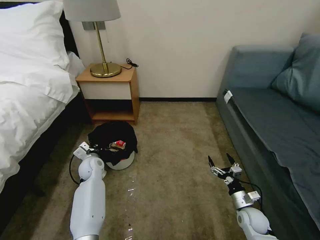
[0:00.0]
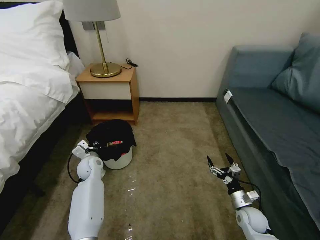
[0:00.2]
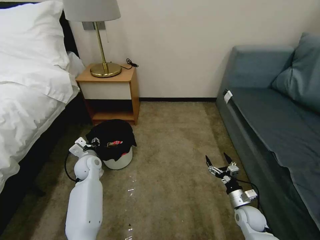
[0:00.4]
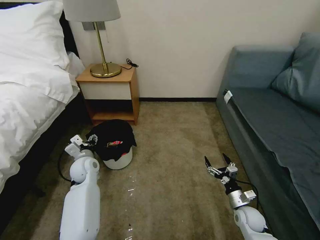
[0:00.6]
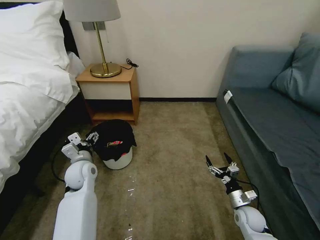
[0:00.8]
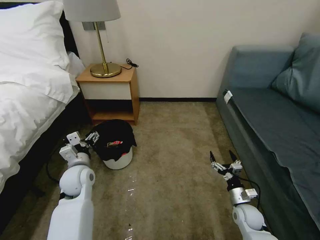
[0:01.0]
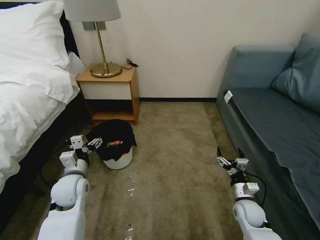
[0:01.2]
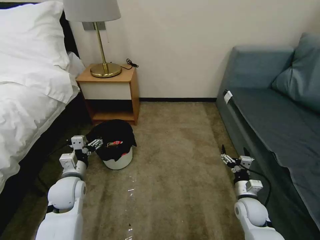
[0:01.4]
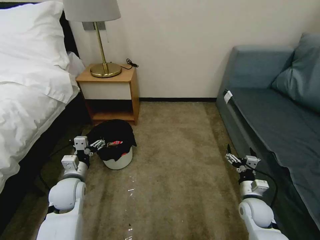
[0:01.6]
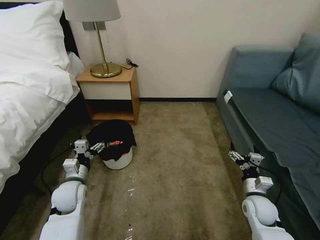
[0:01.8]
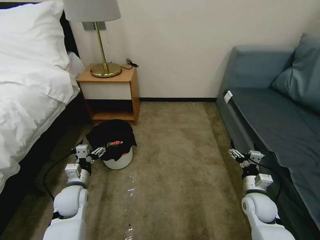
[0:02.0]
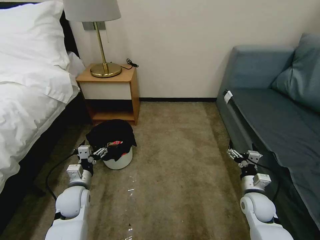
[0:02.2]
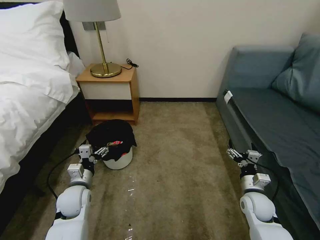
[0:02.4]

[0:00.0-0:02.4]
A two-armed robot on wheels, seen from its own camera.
Task of the whole recording: Pick up the trash bin, then pick up the garbage on the floor and place it into the trash bin.
0:00.0 to 0:01.2: The left gripper shifts about 15 cm backward and upward, and opens its fingers.
0:01.2 to 0:02.4: The right gripper travels upward by some 5 cm. The left gripper moves downward, roughly 5 cm.

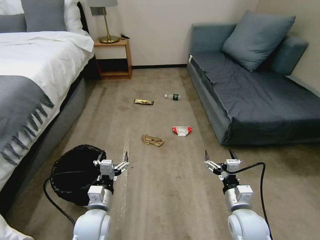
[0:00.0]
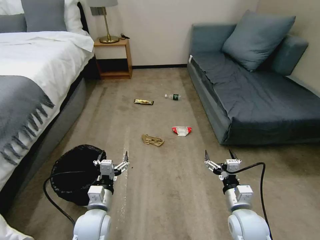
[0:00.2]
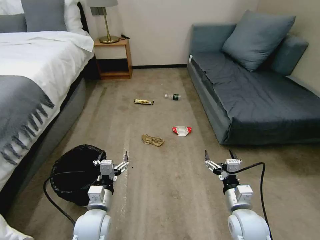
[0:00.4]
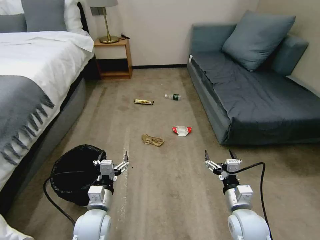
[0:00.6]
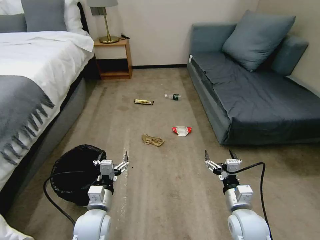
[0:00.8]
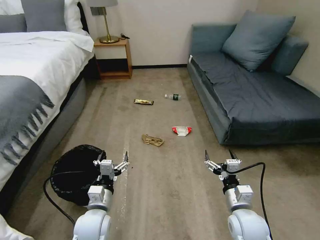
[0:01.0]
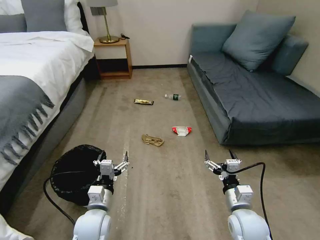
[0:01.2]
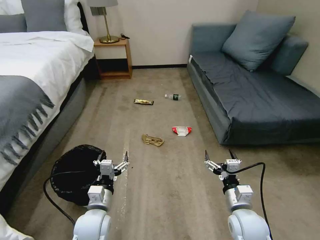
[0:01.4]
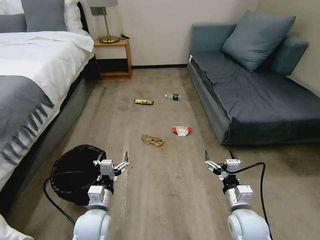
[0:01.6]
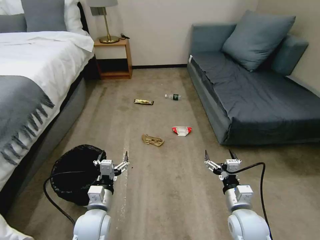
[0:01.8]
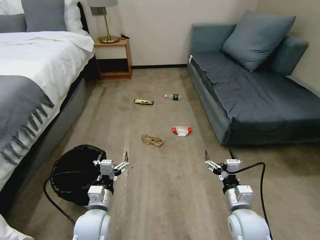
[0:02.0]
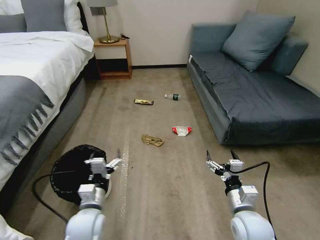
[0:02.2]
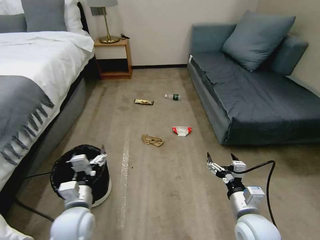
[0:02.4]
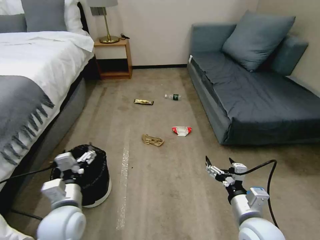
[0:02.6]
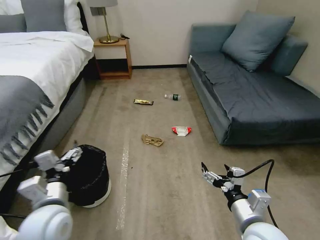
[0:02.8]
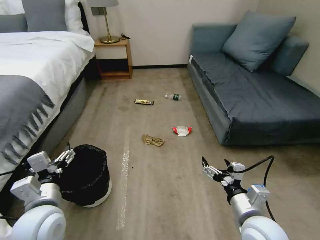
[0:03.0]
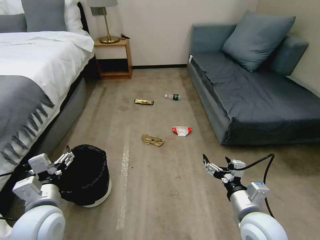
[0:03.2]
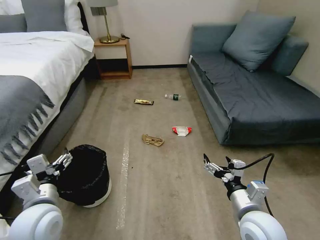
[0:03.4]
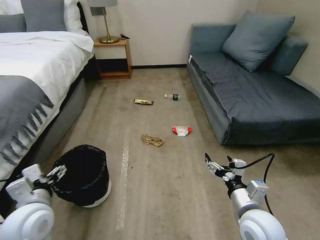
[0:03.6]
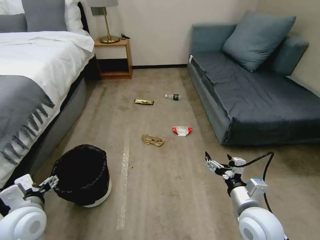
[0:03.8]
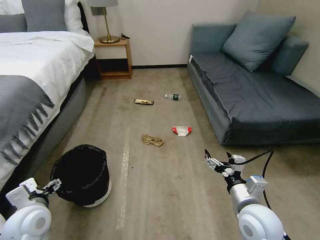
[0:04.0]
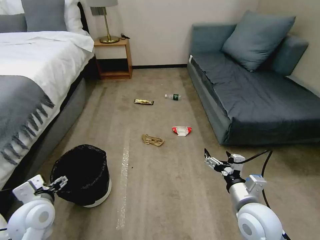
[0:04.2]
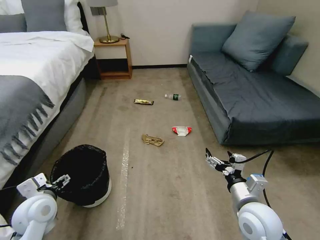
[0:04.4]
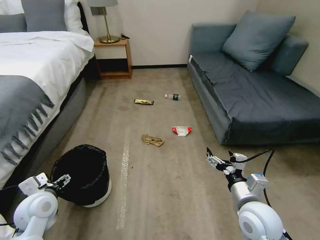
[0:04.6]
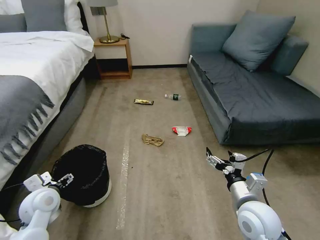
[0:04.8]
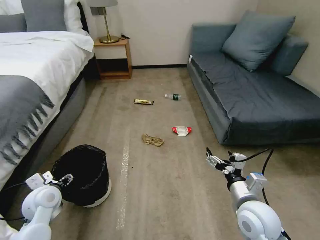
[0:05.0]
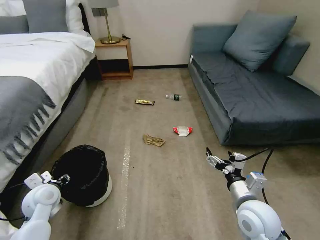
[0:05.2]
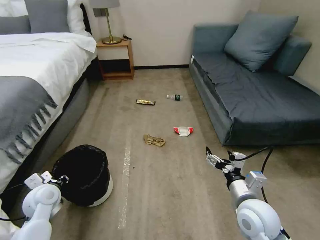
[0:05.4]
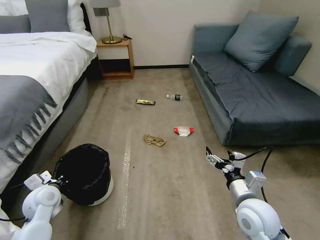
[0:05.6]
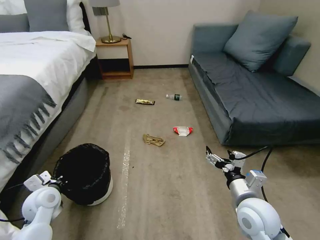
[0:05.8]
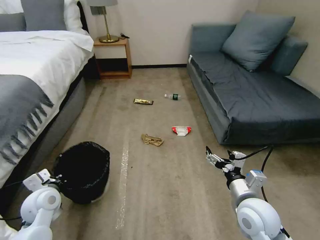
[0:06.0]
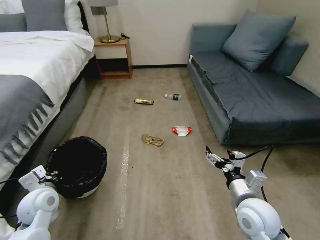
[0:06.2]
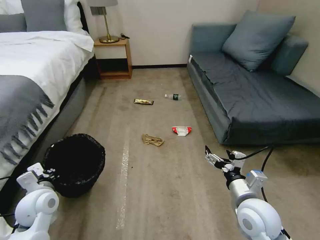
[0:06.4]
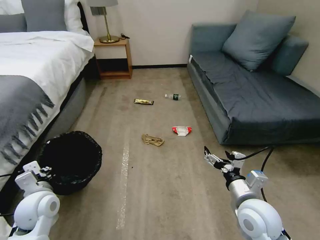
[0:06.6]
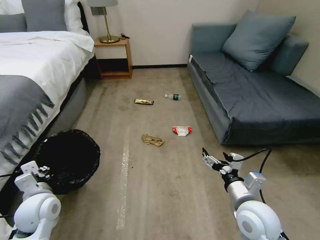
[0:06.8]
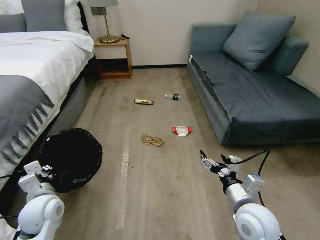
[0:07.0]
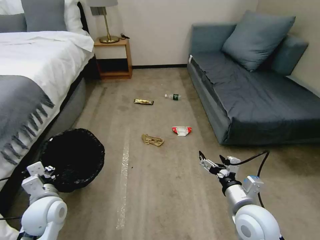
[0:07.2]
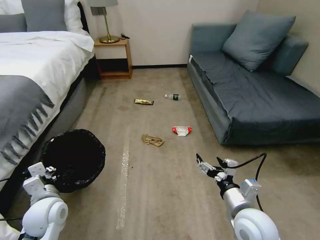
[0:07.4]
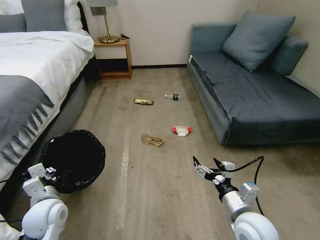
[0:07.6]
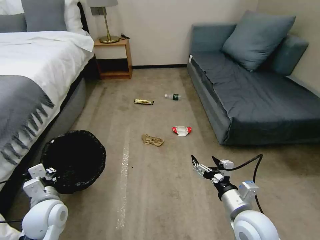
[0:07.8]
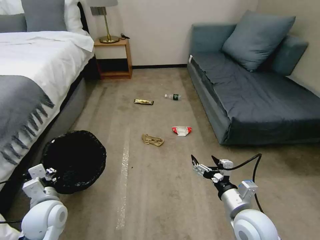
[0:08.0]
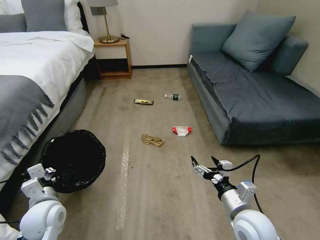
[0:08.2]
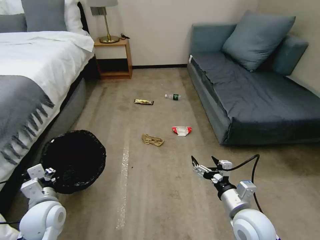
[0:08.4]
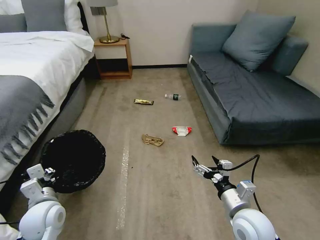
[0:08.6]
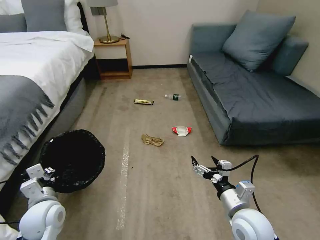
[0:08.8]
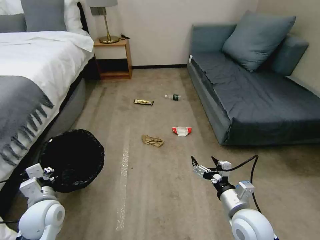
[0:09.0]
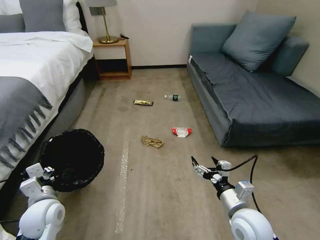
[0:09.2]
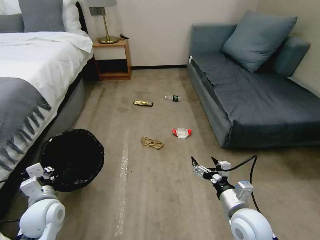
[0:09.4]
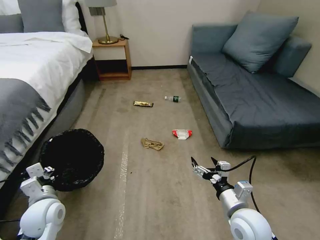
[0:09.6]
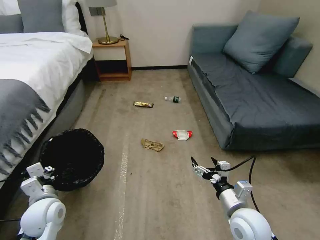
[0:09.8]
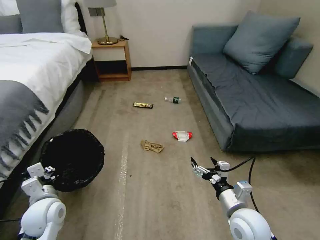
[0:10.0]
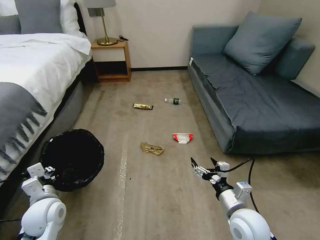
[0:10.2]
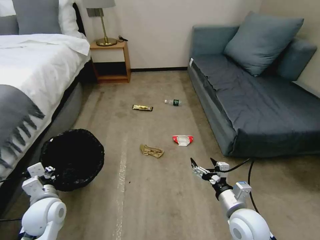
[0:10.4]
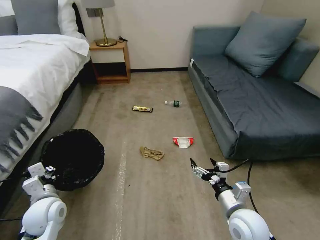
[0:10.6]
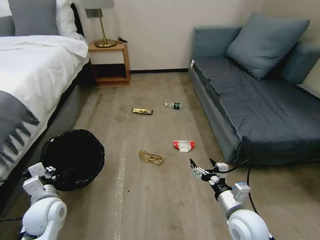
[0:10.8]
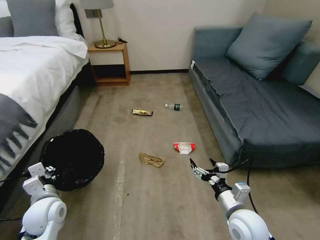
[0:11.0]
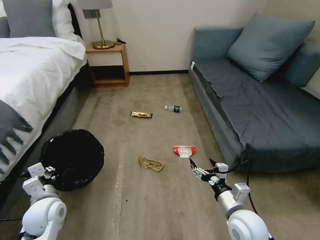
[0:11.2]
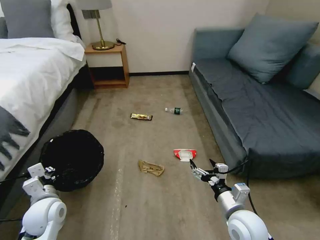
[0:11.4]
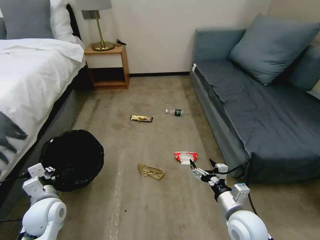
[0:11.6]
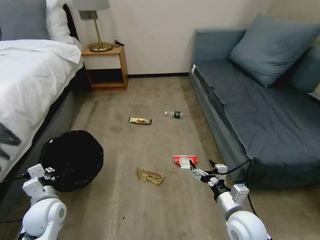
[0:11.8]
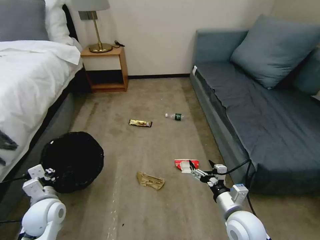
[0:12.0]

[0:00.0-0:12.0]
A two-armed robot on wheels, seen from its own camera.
Task of the whole recording: Pick up the trash bin, then pick up the garbage on the floor and place it into the trash bin.
0:01.6 to 0:03.0: The left gripper goes about 15 cm upward and to the left, while the right gripper shifts some 5 cm upward.
0:03.0 to 0:04.4: The left gripper is displaced to the left and downward by approximately 10 cm.
0:04.4 to 0:06.0: The left gripper shifts by roughly 5 cm, and closes.
0:06.0 to 0:07.6: The left gripper ends up some 5 cm from where it was.
0:07.6 to 0:09.0: The grippers stay close to where they were, moving slightly.
0:09.0 to 0:10.4: Both grippers stay put.

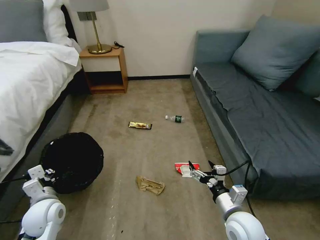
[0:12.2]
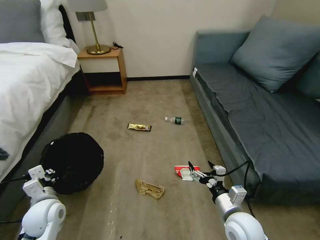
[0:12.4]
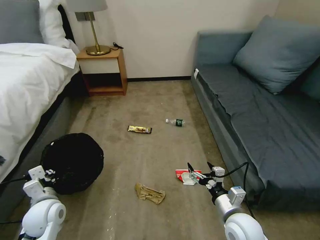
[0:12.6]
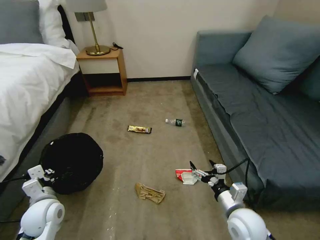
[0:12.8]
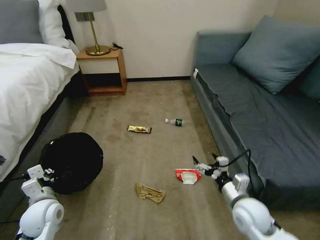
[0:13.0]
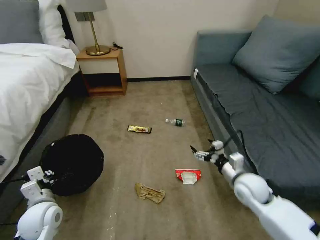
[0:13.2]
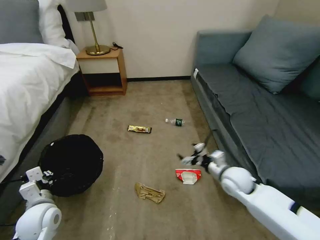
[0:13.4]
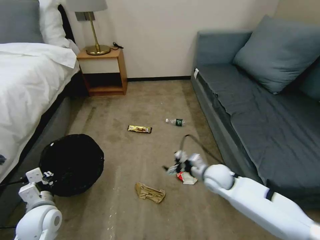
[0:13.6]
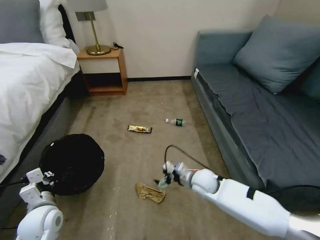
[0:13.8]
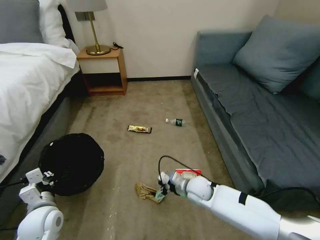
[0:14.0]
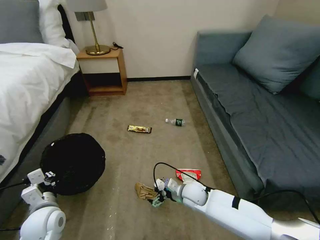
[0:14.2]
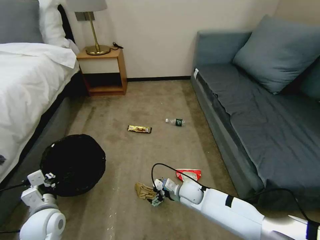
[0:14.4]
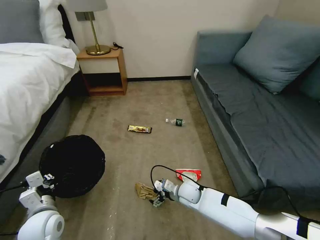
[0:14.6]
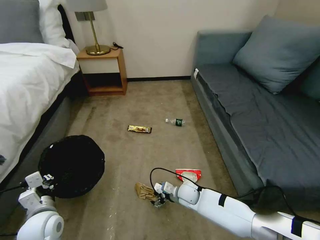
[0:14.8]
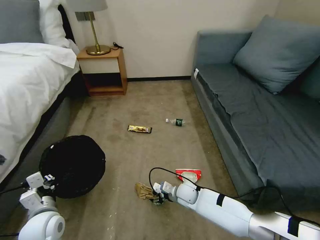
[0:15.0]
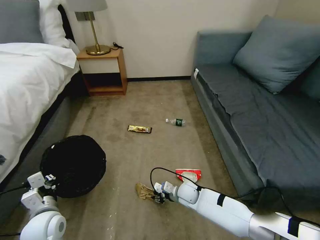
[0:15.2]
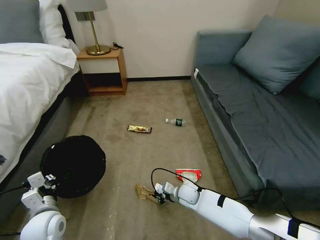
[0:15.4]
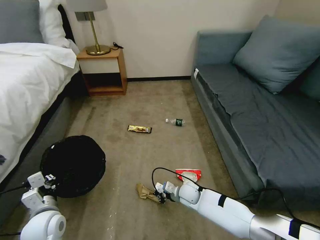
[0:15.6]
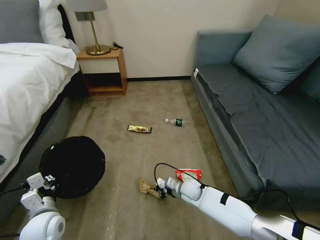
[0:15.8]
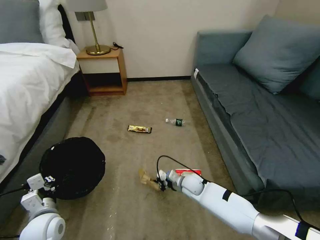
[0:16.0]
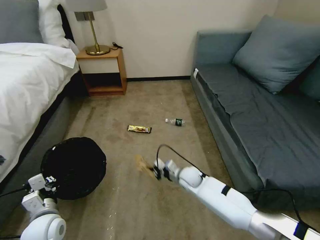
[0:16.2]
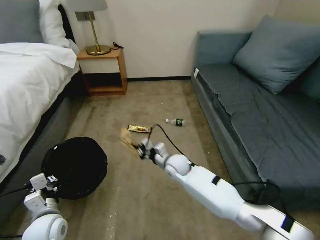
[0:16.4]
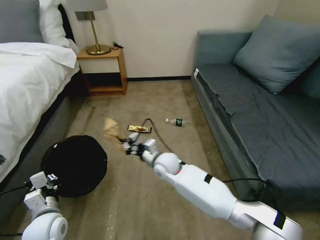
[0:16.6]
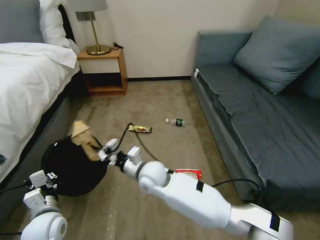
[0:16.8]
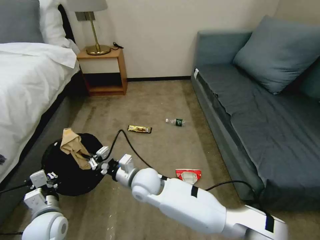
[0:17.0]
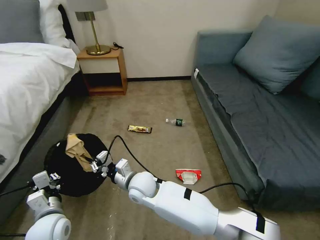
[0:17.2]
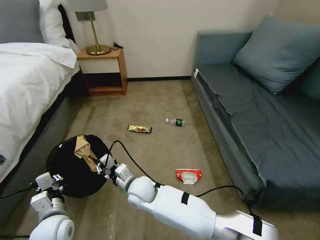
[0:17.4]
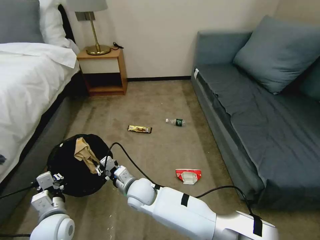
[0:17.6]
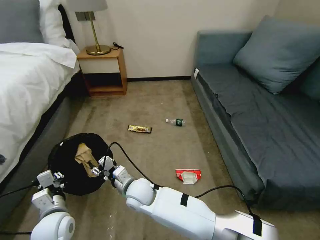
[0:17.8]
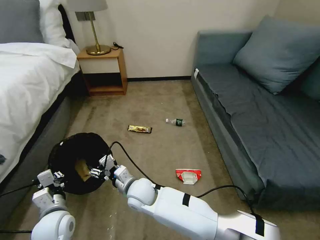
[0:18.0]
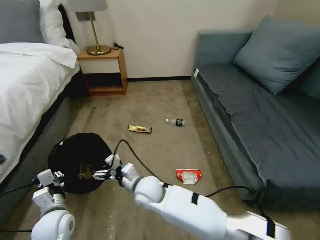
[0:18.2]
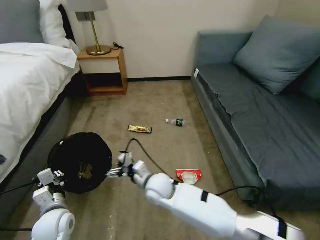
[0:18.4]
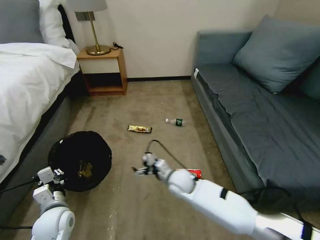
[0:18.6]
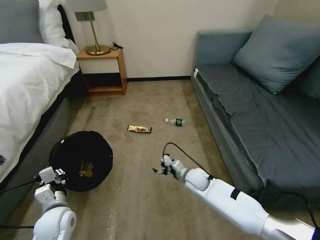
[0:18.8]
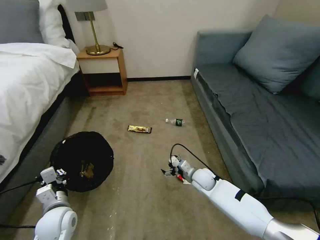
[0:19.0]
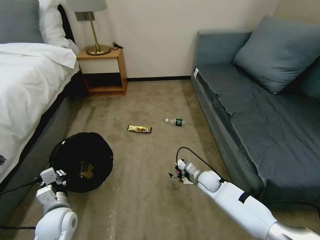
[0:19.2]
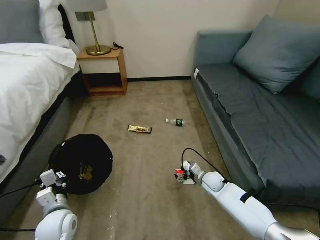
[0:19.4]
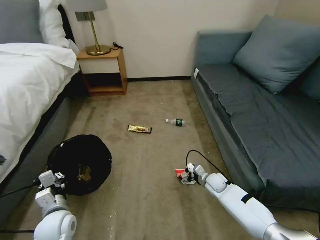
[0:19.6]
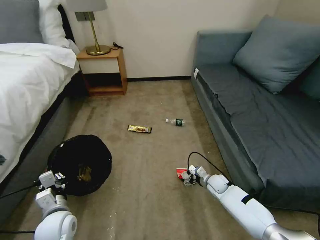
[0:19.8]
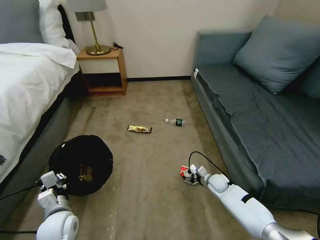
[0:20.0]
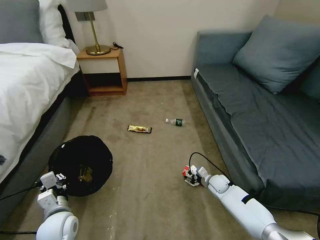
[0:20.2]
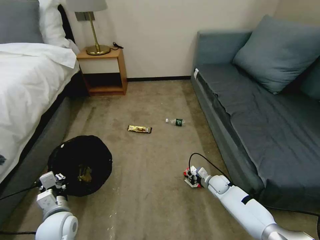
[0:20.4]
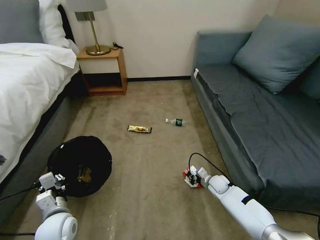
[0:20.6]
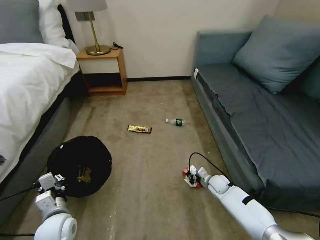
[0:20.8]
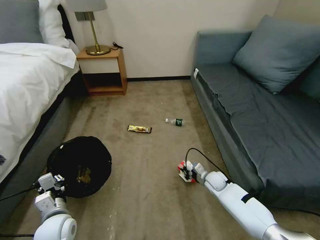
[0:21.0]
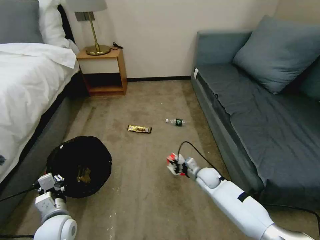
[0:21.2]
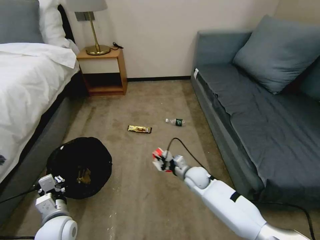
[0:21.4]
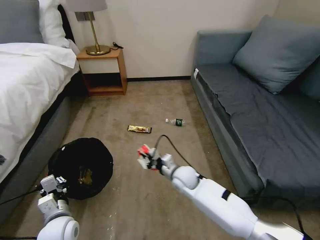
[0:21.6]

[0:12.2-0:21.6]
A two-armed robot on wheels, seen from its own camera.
Task of the whole recording: Pick up the trash bin, then pick up the garbage on the floor and place it into the trash bin.
0:12.2 to 0:13.8: The right gripper travels forward and to the left by approximately 15 cm.
0:13.8 to 0:15.4: The right gripper is displaced downward by about 10 cm, and closes.
0:15.4 to 0:17.0: The right gripper travels upward and to the left by some 25 cm.
0:17.0 to 0:18.4: The right gripper goes about 5 cm to the right, and opens up.
0:18.4 to 0:20.0: The right gripper is displaced to the right and downward by some 30 cm.
0:20.0 to 0:21.6: The right gripper shifts roughly 20 cm to the left and upward, and closes its fingers.
